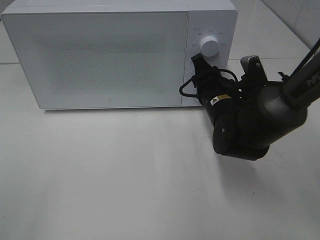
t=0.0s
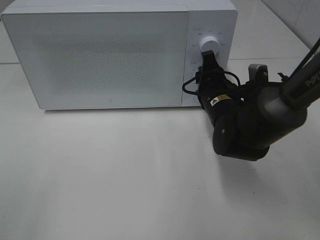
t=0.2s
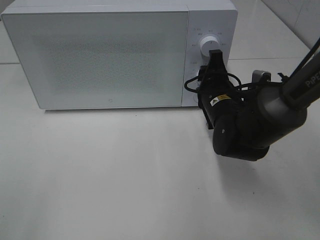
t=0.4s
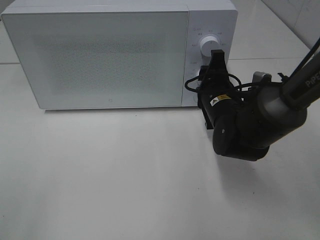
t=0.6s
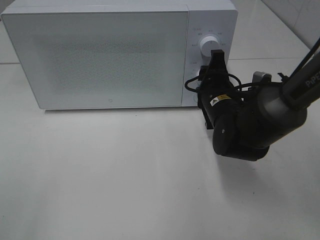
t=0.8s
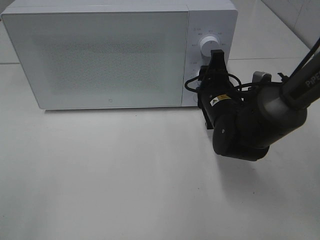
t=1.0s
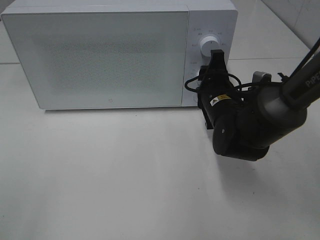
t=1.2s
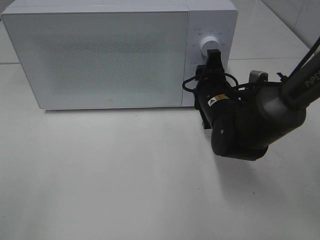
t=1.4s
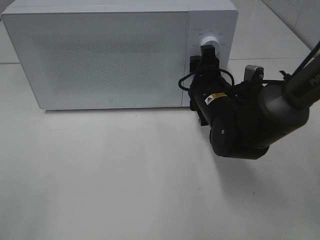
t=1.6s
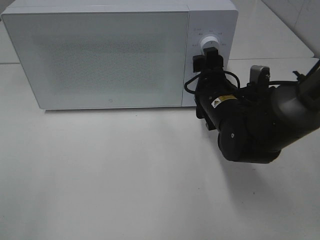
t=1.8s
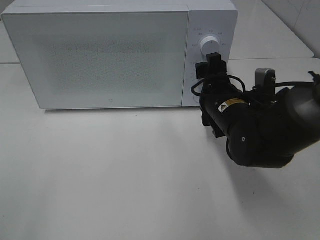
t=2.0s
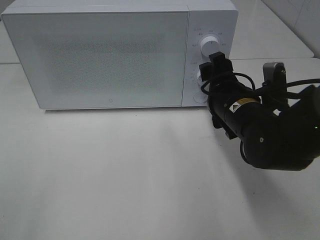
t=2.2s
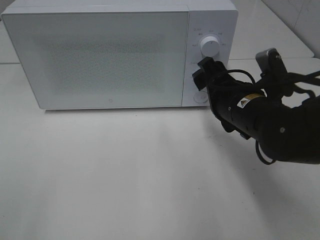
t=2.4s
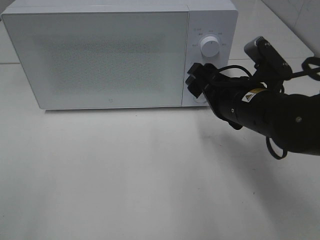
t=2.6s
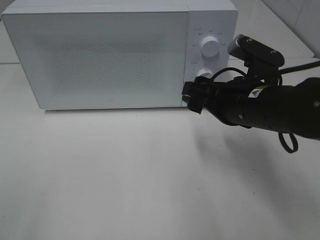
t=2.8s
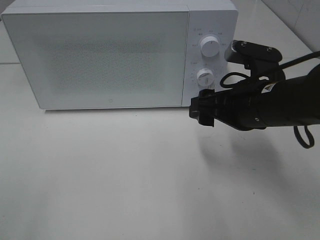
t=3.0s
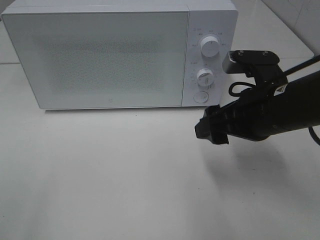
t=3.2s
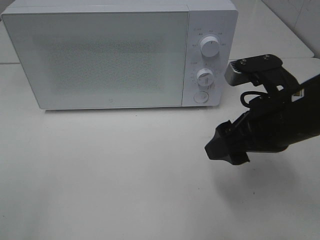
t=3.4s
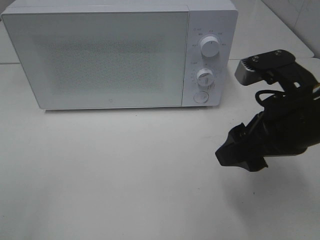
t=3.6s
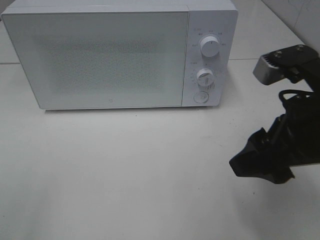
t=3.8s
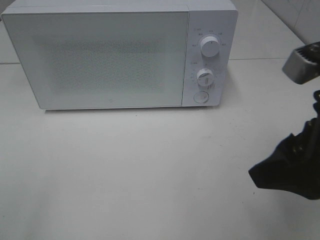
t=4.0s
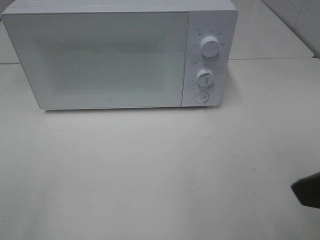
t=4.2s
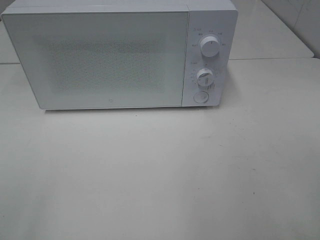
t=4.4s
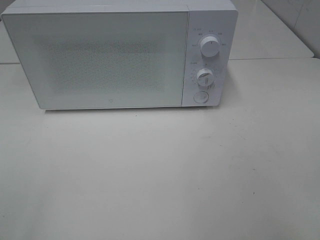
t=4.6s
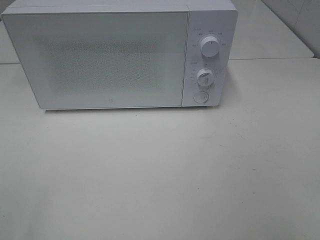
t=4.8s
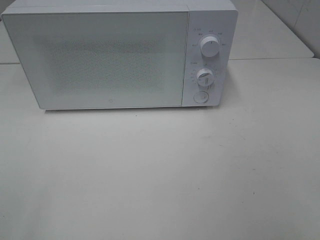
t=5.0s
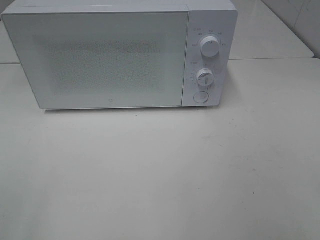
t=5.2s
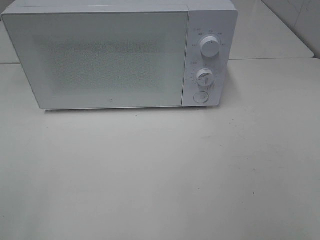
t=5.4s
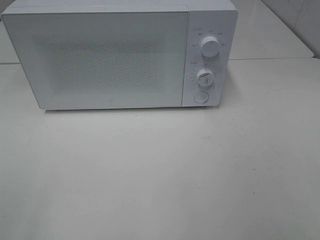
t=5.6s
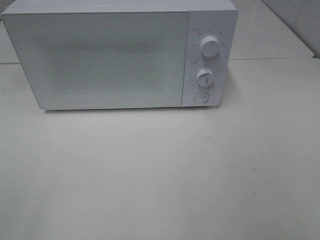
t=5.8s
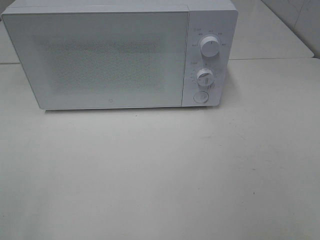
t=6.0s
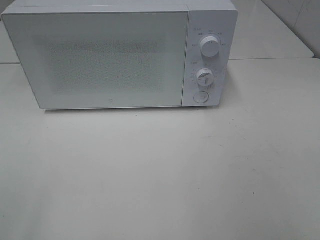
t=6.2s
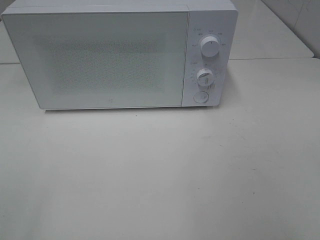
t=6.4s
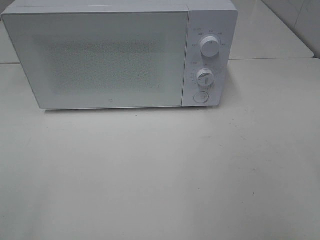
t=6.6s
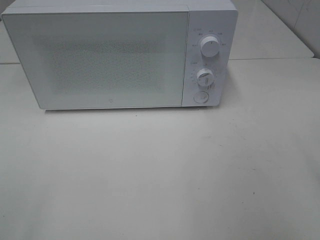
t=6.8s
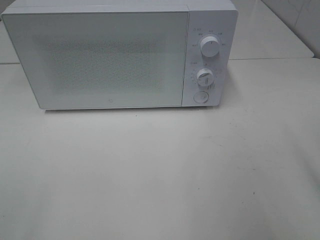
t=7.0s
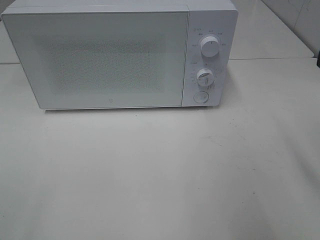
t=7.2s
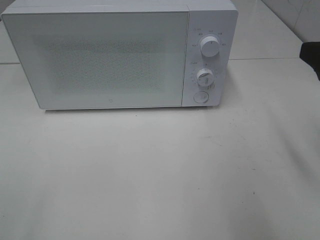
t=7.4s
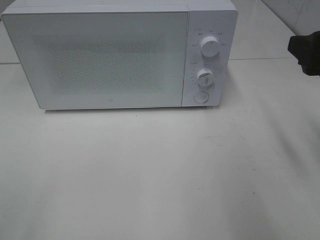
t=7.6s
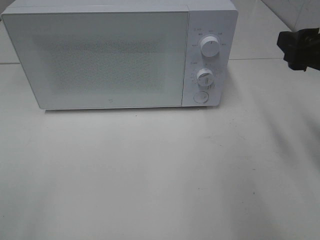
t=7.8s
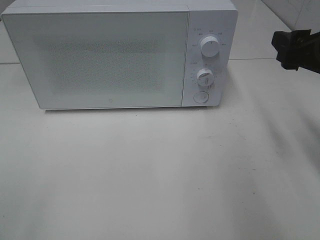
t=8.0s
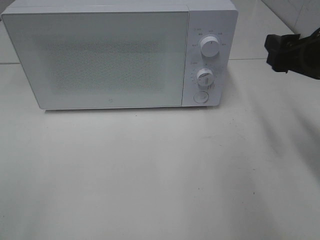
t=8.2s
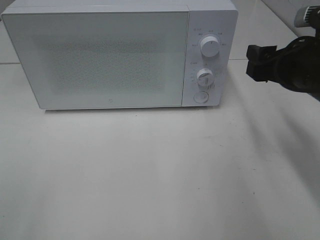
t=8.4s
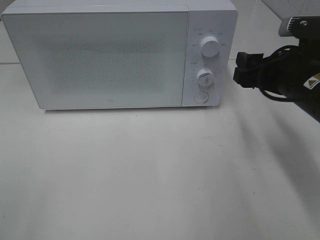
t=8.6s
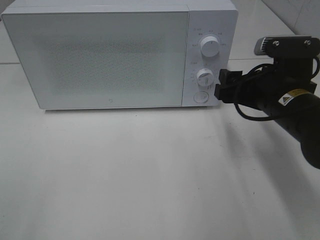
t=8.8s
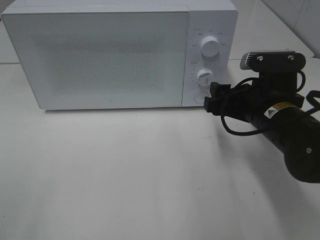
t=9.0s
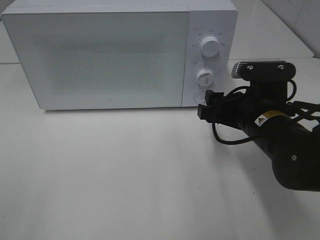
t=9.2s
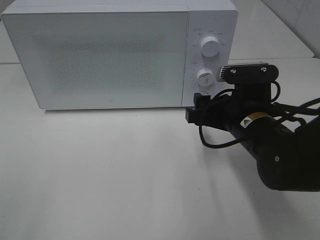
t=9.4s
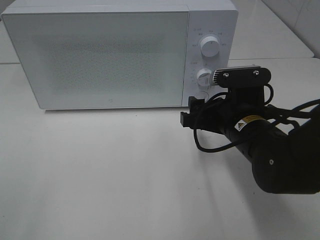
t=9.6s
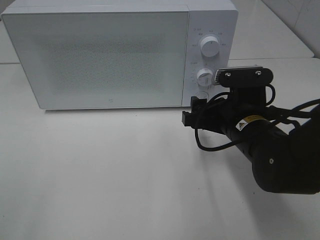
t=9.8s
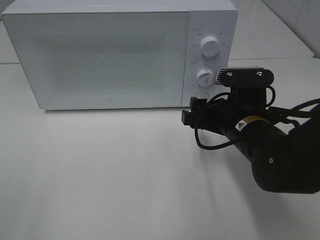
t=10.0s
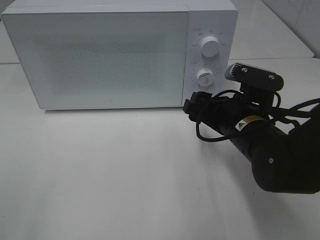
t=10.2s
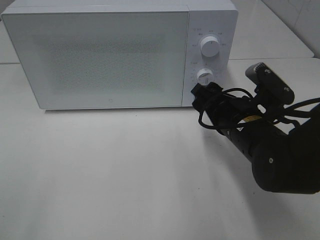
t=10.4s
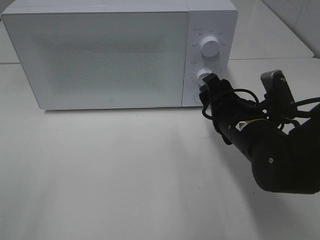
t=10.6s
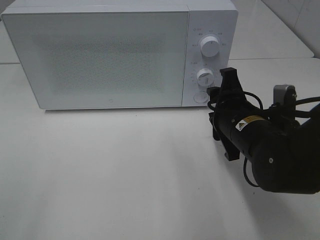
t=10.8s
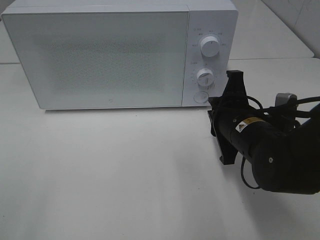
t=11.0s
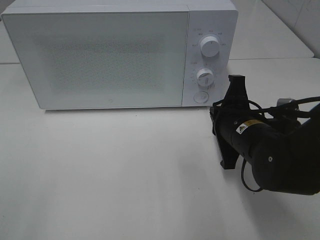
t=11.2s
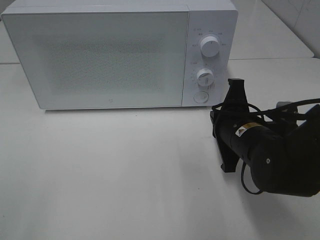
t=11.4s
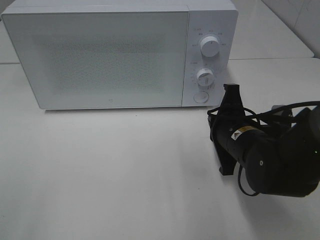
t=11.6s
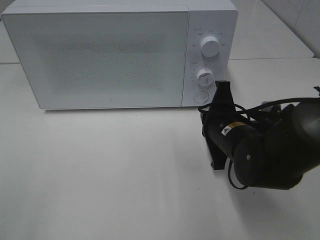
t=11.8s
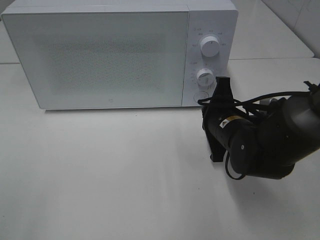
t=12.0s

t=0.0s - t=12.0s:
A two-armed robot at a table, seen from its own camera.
Task of the whole recording: Heat Sandwich.
Step, t=0.0s - t=2.4s: Right hand: twist timer button.
t=1.6s - t=3.0s: The right gripper shifts some 10 cm backward and upward.
t=3.0s - t=4.4s: The right gripper travels backward, upward and to the right by about 20 cm.
t=6.0s - t=7.6s: The right gripper travels forward by some 20 cm.
t=7.6s - t=9.0s: The right gripper shifts some 15 cm downward and to the left.
t=10.4s - t=12.0s: The right gripper closes its fingers.

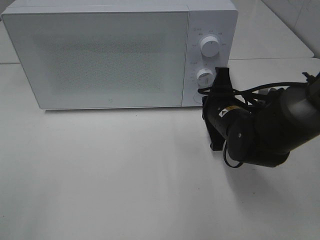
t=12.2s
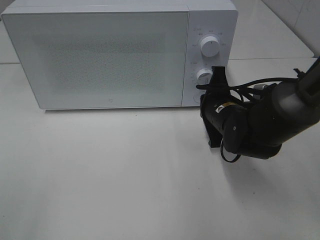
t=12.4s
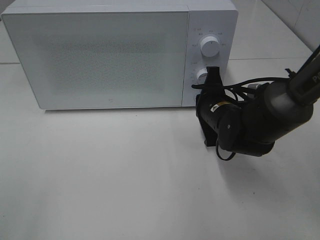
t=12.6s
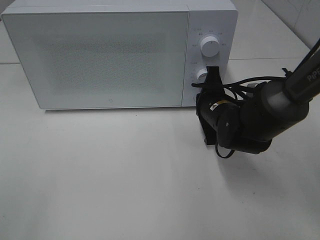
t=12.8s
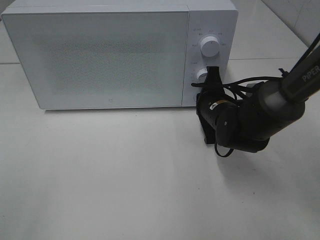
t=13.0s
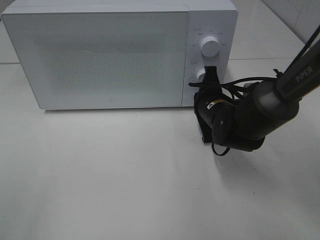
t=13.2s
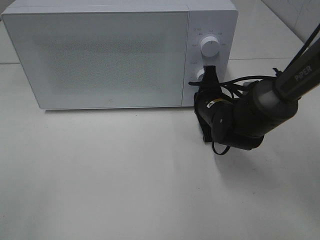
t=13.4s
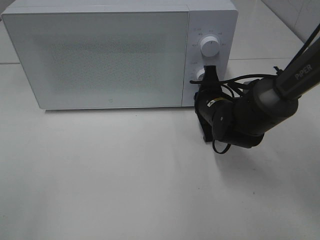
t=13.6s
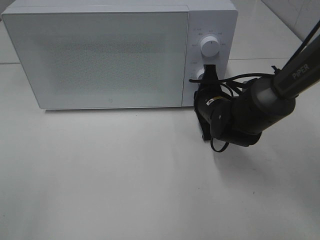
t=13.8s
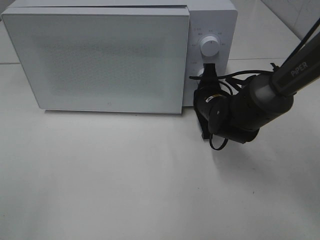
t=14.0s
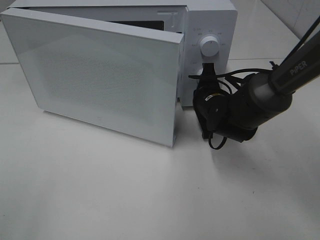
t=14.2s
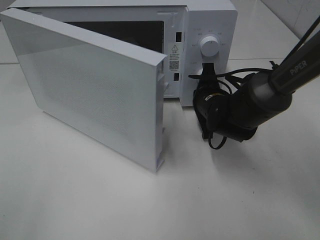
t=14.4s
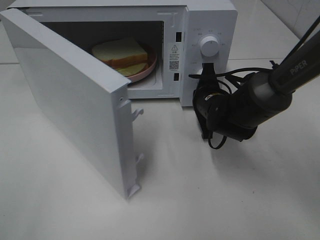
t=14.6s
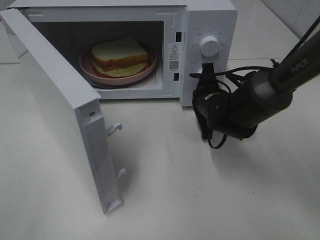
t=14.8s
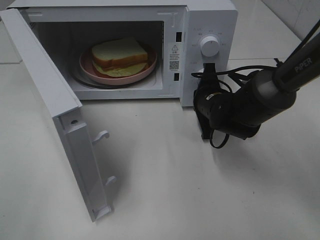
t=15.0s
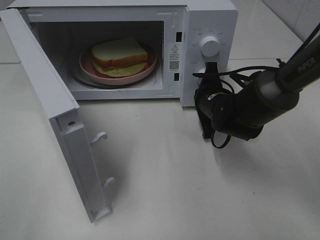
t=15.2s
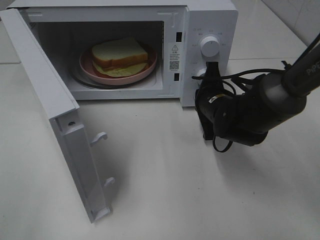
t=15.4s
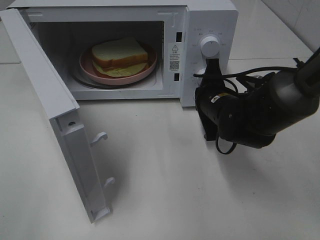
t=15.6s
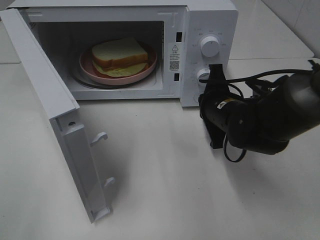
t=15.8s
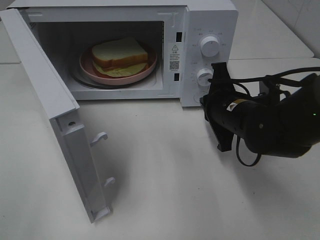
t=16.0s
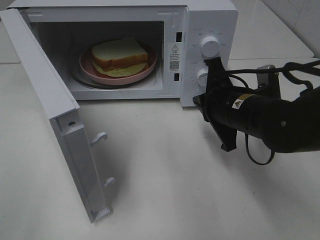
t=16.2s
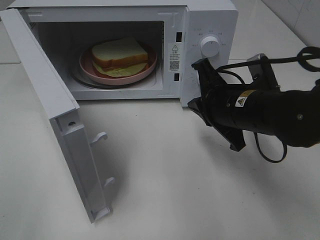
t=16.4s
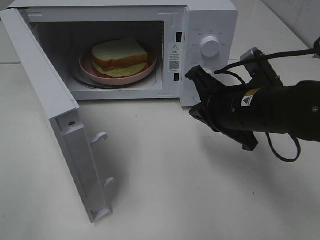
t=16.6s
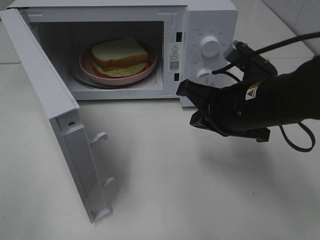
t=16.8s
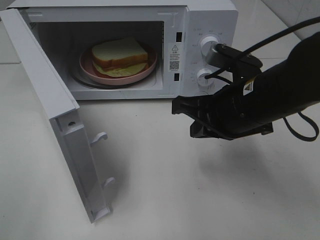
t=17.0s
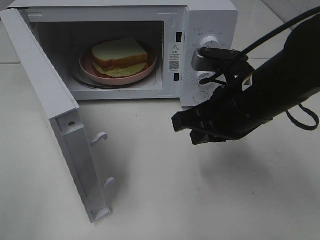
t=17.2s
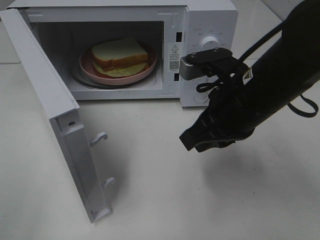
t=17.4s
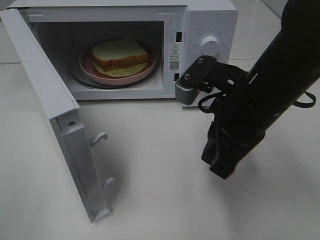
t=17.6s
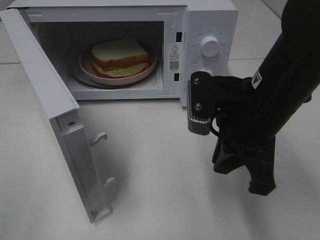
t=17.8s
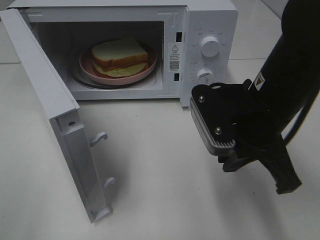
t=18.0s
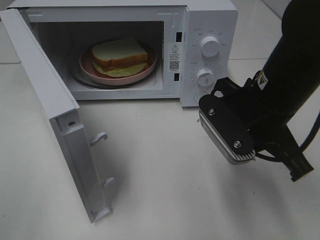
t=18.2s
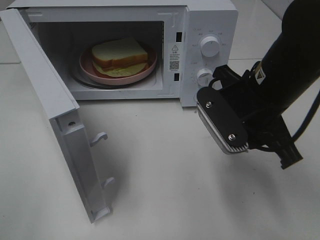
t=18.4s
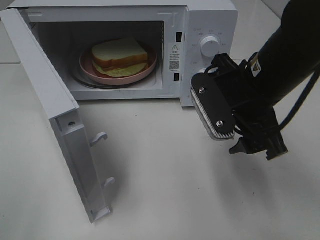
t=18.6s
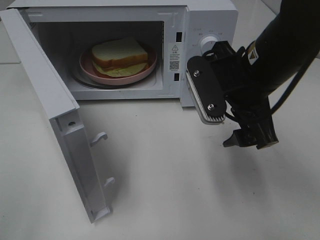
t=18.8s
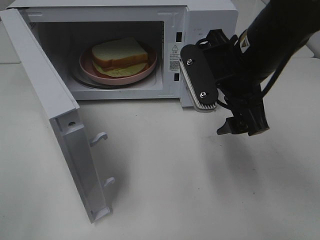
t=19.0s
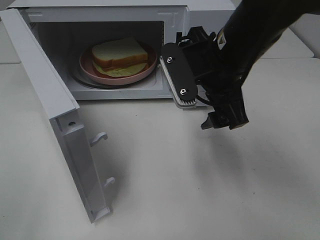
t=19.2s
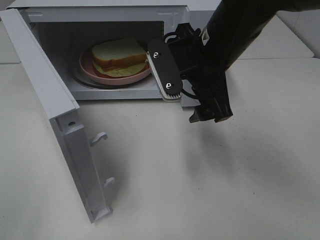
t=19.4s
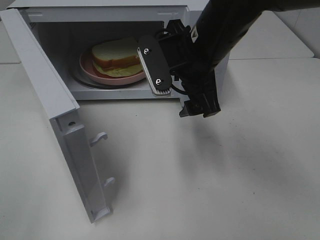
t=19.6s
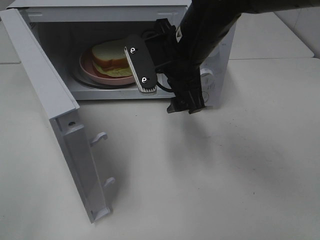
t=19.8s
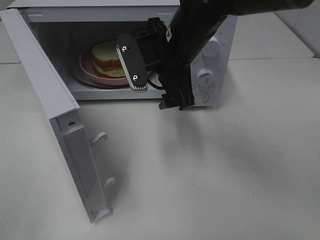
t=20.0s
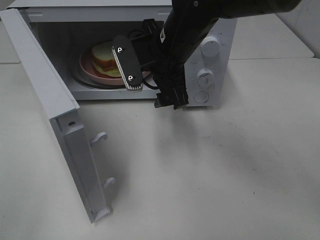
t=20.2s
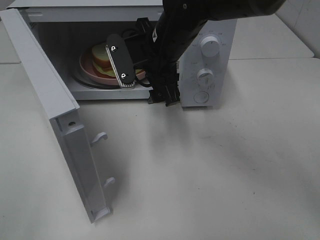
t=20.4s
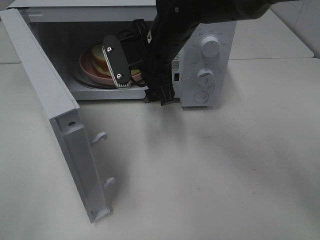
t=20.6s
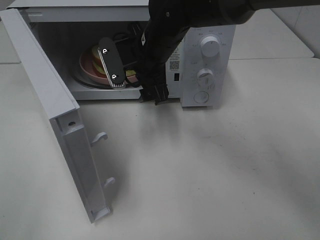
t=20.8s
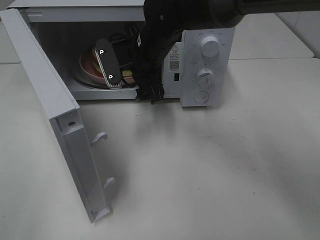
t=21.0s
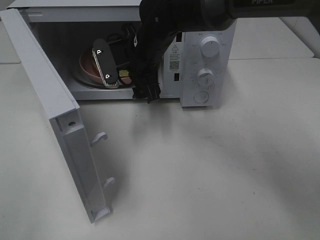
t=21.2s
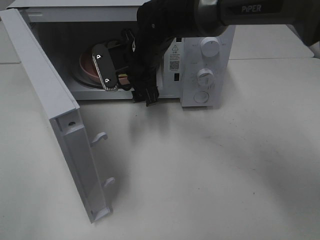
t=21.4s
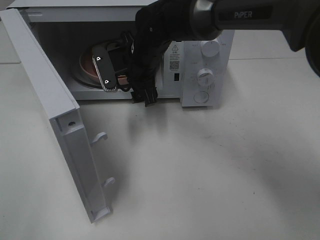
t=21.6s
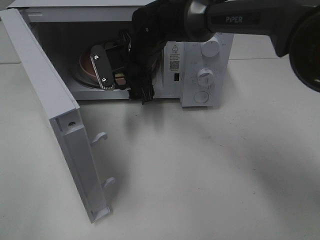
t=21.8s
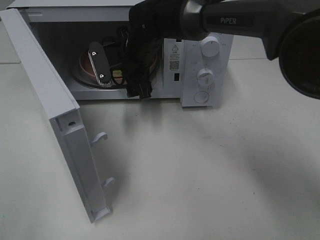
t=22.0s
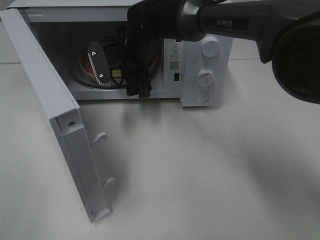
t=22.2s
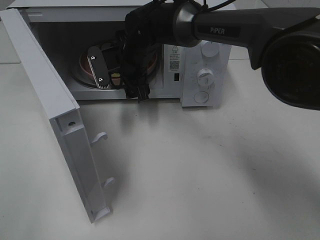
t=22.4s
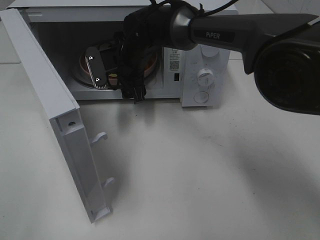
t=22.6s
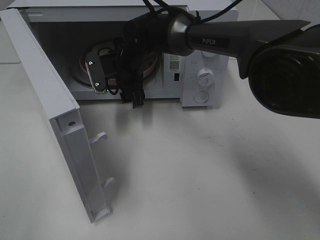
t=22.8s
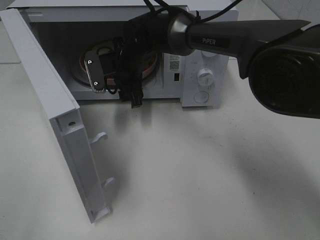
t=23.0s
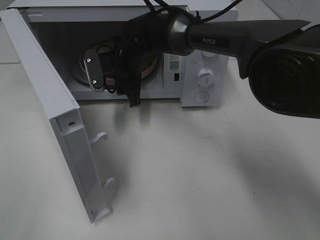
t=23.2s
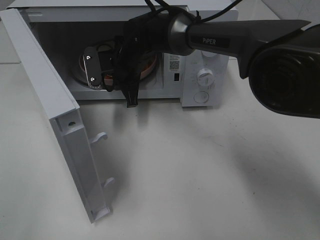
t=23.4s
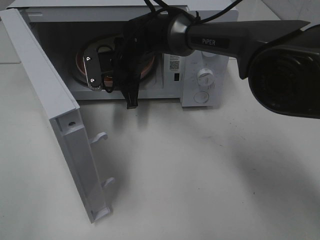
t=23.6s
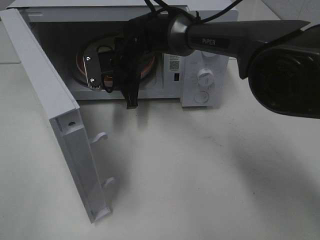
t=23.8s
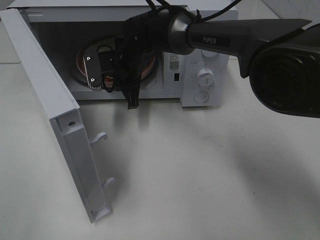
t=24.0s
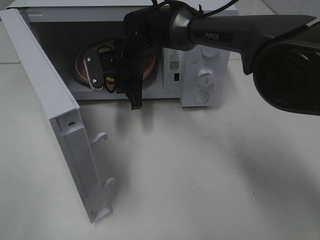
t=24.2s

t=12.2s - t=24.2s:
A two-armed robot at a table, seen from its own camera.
Task of the whole recording: Heat Sandwich.
Step, t=12.2s - t=15.6s: Right hand: press the switch.
Step, t=15.8s - t=22.8s: Right hand: grab the plate with the sandwich.
t=12.2s - t=13.8s: The right gripper is displaced forward by some 5 cm.
t=15.2s - t=16.6s: The right gripper heads backward and upward, covering approximately 15 cm.
t=18.2s - t=19.8s: The right gripper shifts some 15 cm forward and to the left, and opens its fingers.
t=19.8s - t=21.2s: The right gripper travels forward and to the left by about 10 cm.
t=21.2s - t=22.6s: The right gripper changes place by some 5 cm.
t=22.6s - t=24.2s: The right gripper closes up.
